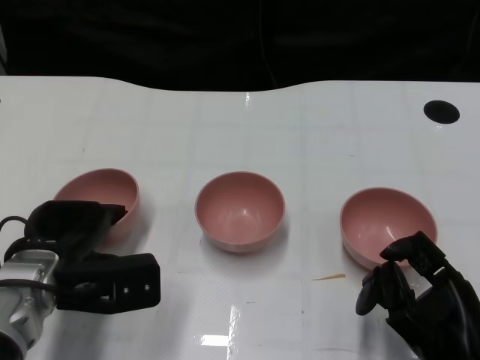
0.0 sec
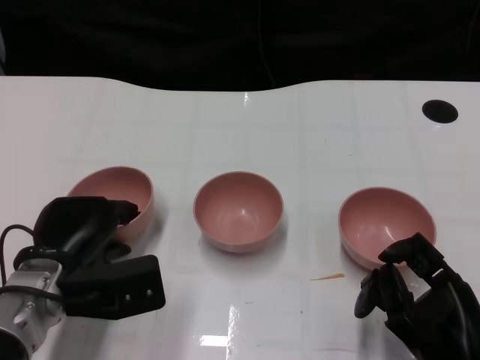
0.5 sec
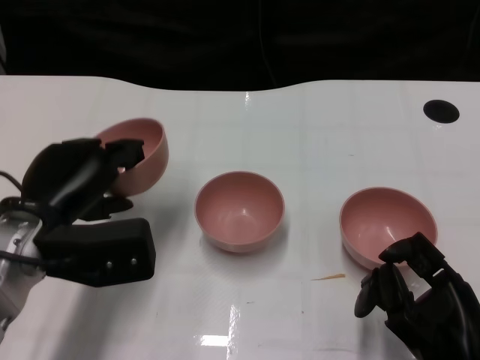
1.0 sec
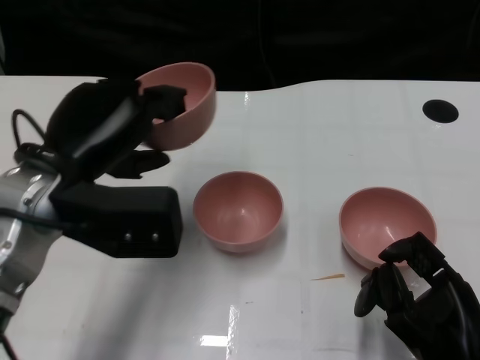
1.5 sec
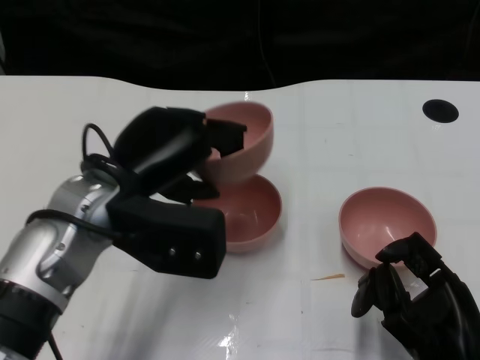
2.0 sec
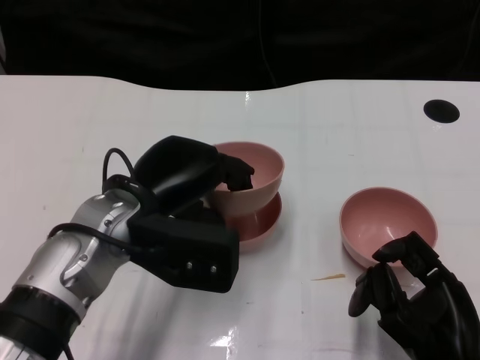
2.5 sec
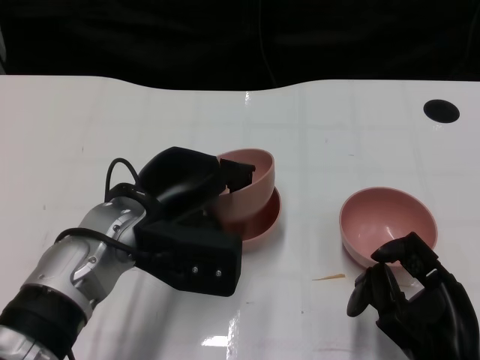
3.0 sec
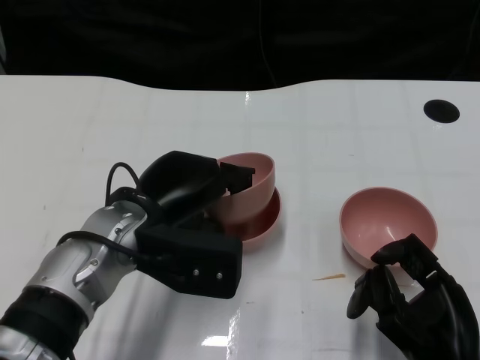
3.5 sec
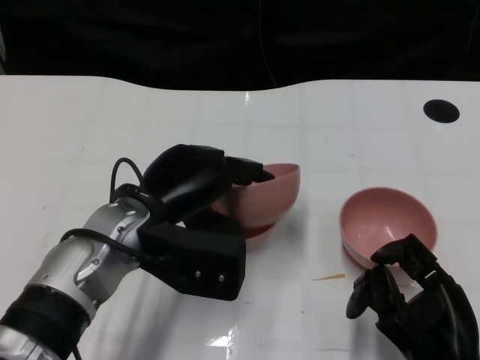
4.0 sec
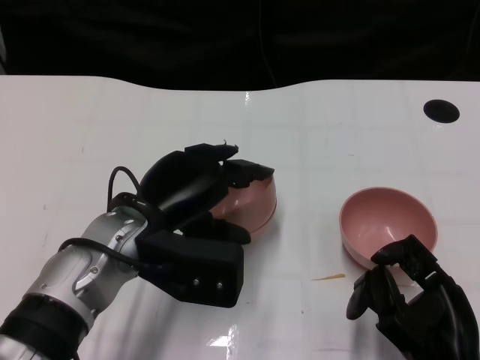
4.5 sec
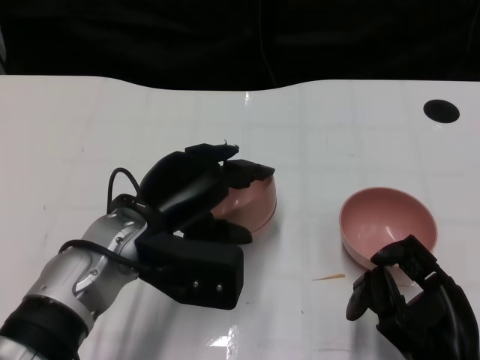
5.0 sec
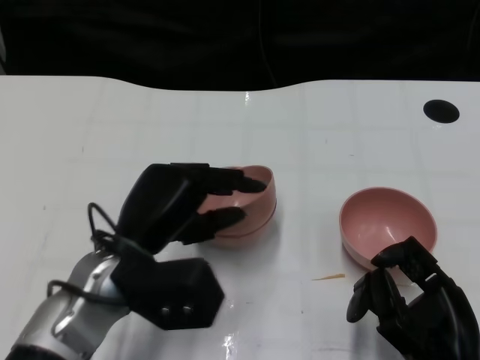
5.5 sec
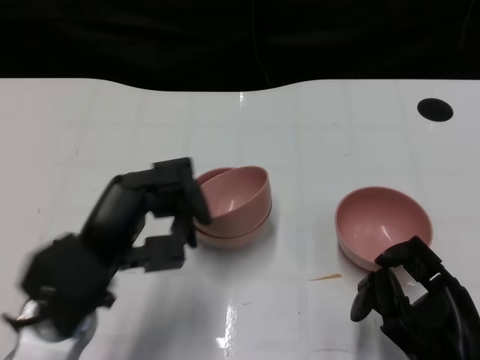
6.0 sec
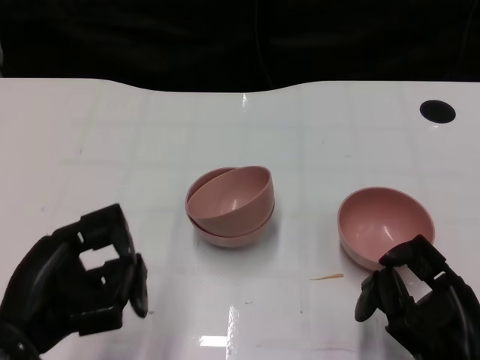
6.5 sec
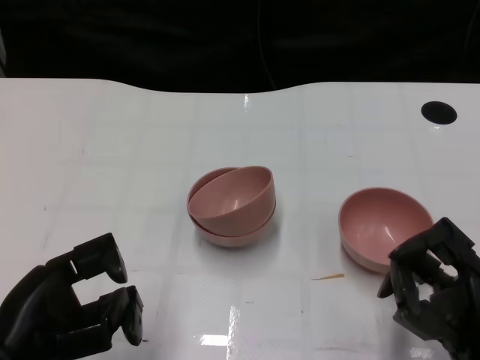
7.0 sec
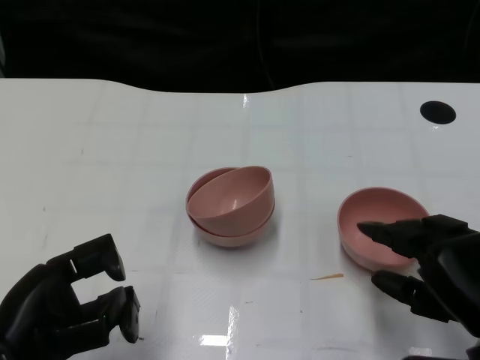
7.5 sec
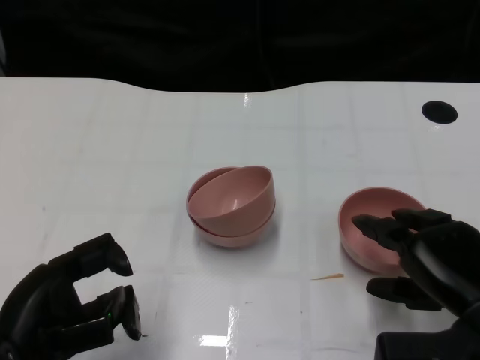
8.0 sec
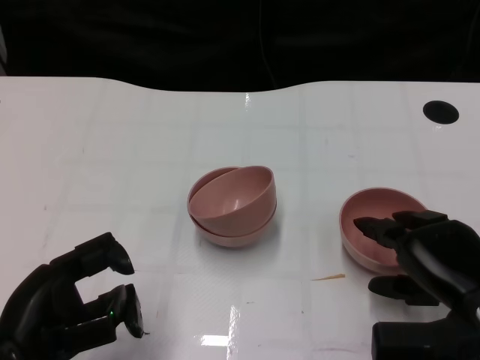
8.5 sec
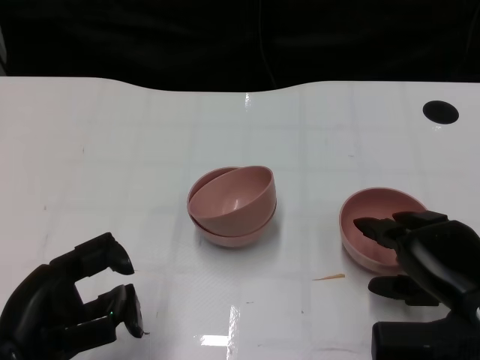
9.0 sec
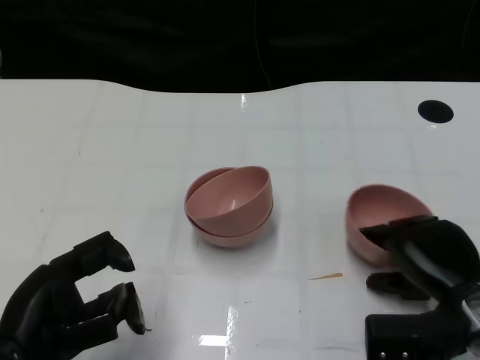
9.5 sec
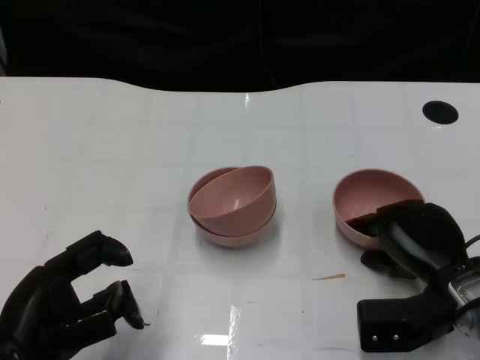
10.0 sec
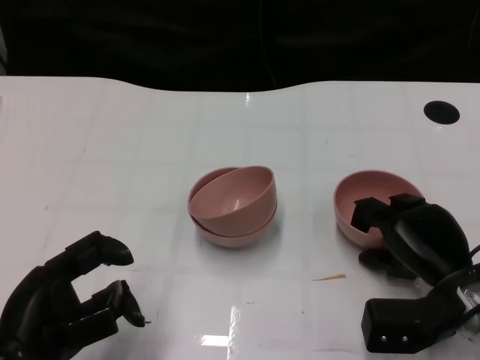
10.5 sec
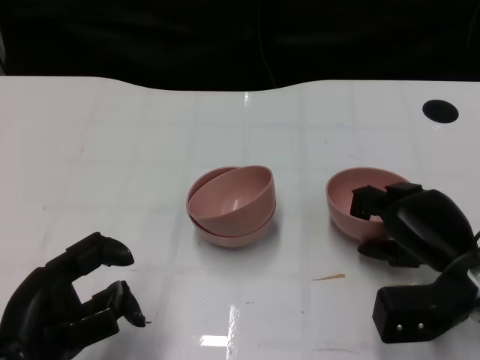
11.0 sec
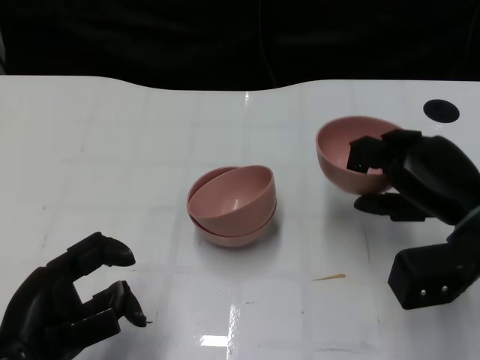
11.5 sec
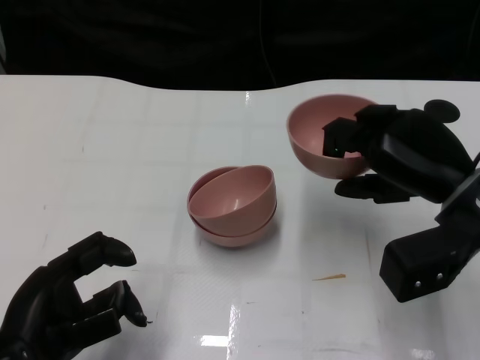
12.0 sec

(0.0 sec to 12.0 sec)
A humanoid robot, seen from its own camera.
Task of the whole recording: Pick up the bowl on one side of the table and place it on top of the middle bowl, then pick up the bowl on the other side of the table and place it on top of the middle bowls.
Step, 1.0 sec - 5.0 sec: Place the bowl on the left onto the bowl in the middle with left gripper.
Step, 5.5 sec - 11.0 sec: Grasp the bowl on the right with the right gripper.
0.0 sec - 2.0 sec: The left hand shifts roughly 10 cm upward and to the right.
4.0 sec - 6.0 sec: The left hand is displaced backward by about 5 cm.
6.0 sec - 8.0 sec: The right hand goes approximately 5 cm forward. Meanwhile the left hand heads to the left and backward, covering some 10 cm.
8.0 sec - 10.0 sec: The right hand goes about 5 cm forward.
10.0 sec - 12.0 sec: The right hand is displaced upward by about 10 cm.

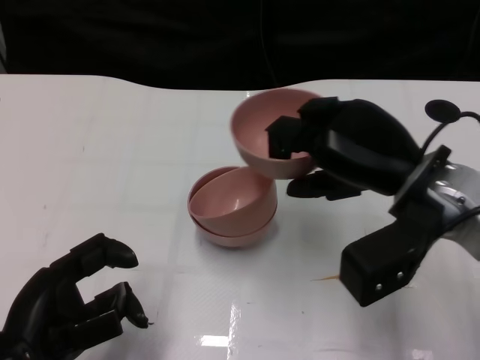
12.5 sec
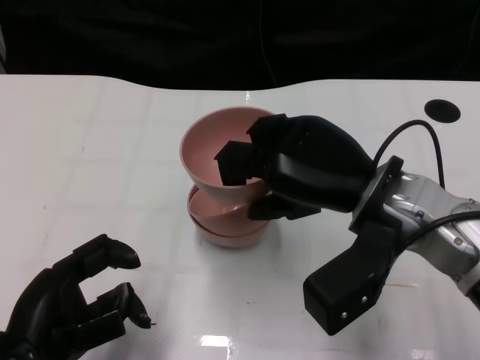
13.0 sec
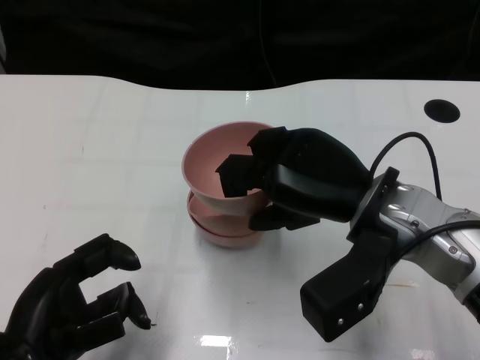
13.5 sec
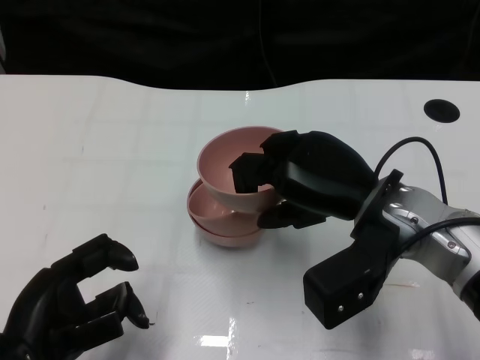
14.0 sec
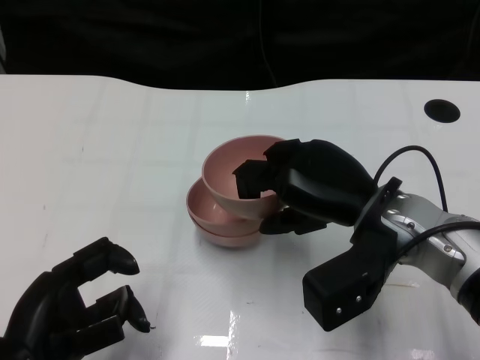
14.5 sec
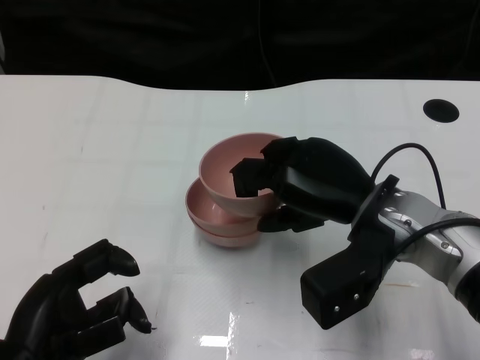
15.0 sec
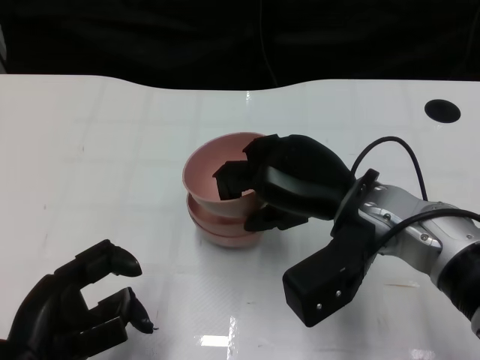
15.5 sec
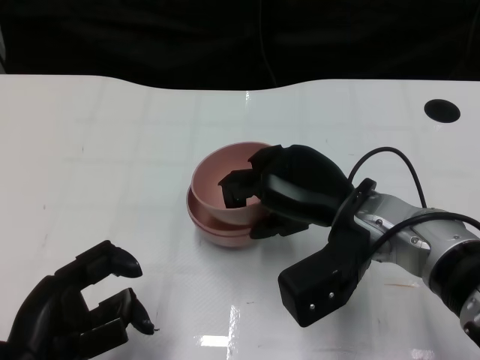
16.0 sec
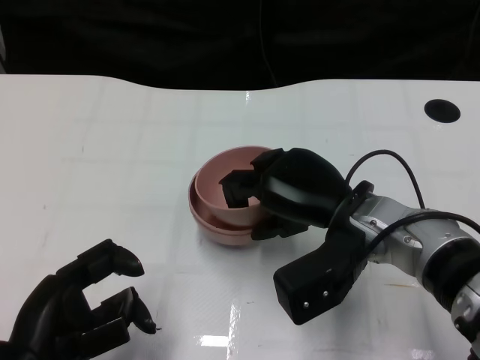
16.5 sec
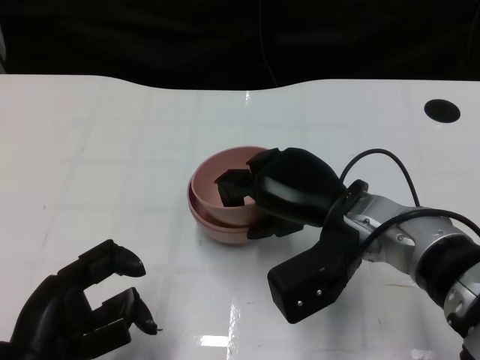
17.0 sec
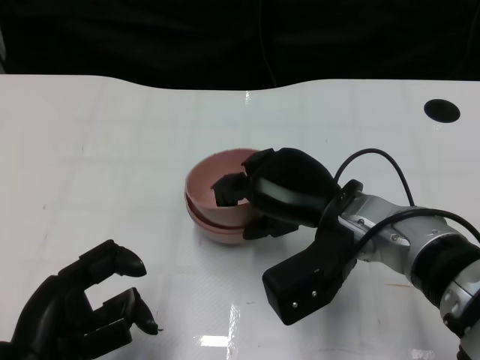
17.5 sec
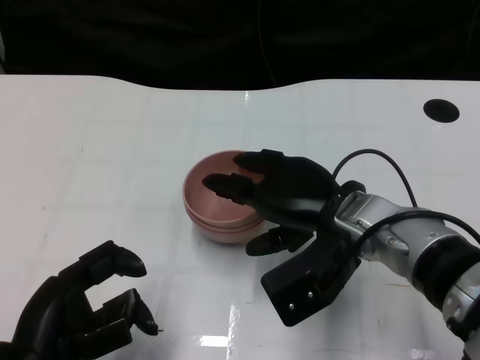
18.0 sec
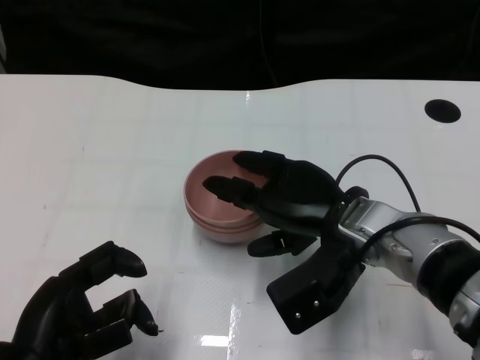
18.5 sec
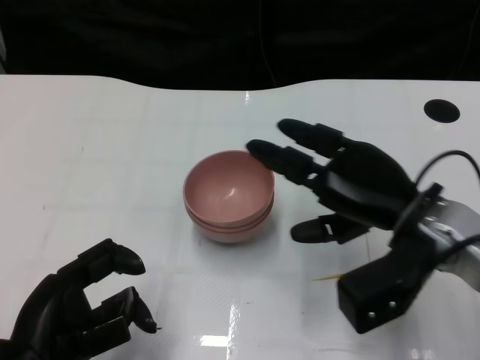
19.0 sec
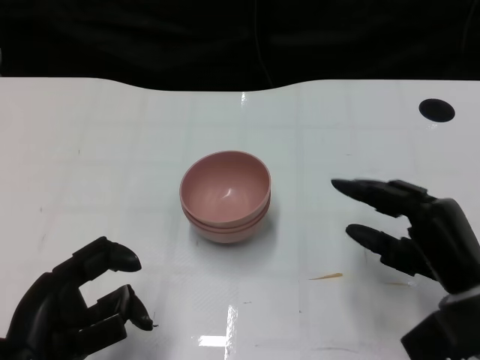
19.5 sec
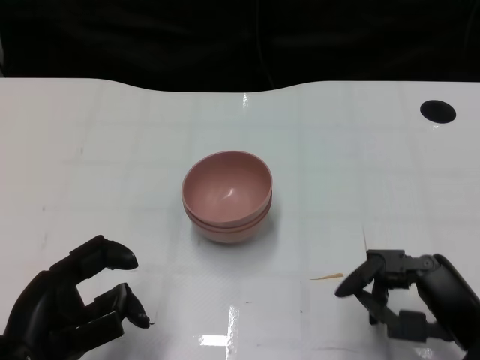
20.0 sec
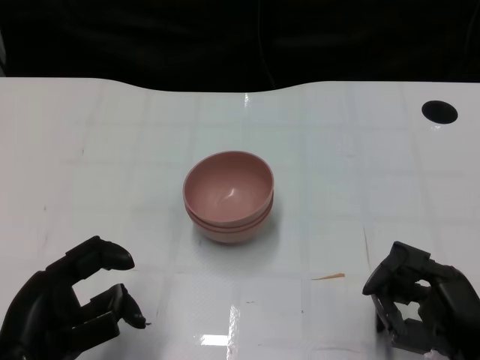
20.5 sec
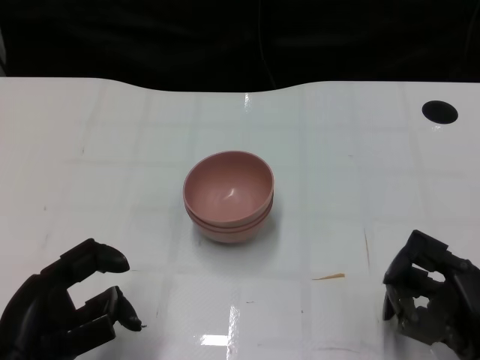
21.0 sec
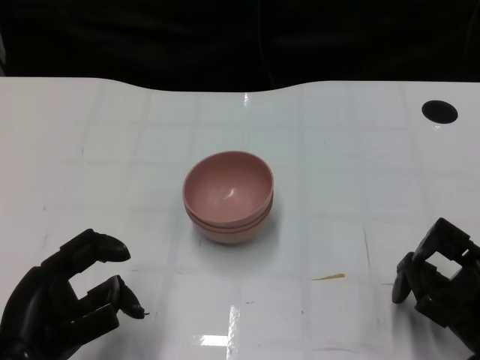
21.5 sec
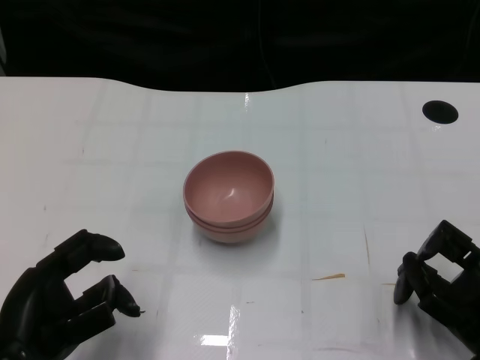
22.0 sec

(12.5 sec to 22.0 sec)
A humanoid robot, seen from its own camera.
Task of the whole recording: Pick up the bowl on one side of the table and place it on top of the middle bowl, then pick up the bowl on the other side of the table and place it on top of the middle bowls.
Step, 12.5 sec - 18.0 sec: Place the bowl on the right onto the bowl in the middle with right gripper.
14.5 sec - 18.0 sec: The hands move only a little.
18.0 sec - 20.0 sec: The right hand heads to the right, backward and downward, covering about 20 cm.

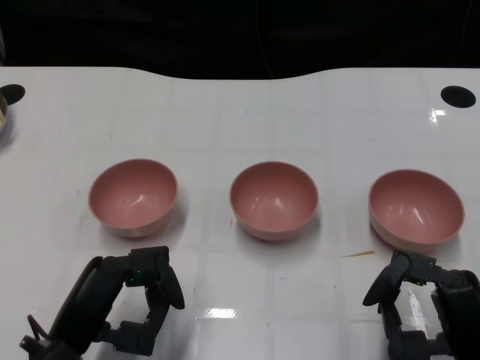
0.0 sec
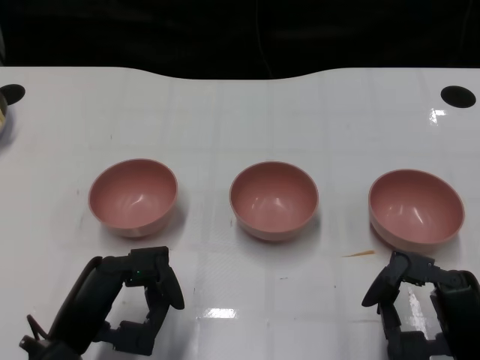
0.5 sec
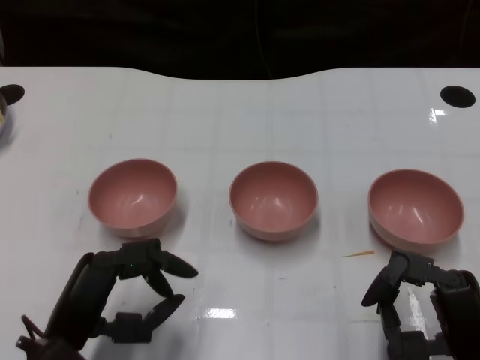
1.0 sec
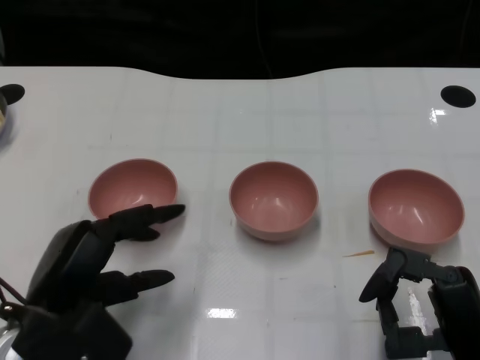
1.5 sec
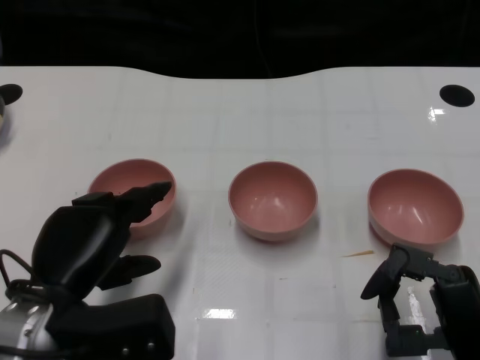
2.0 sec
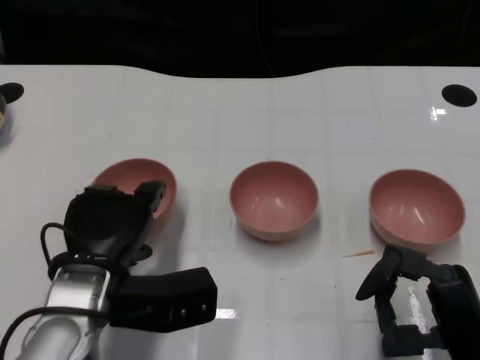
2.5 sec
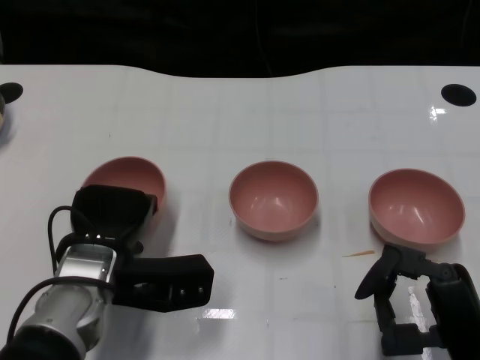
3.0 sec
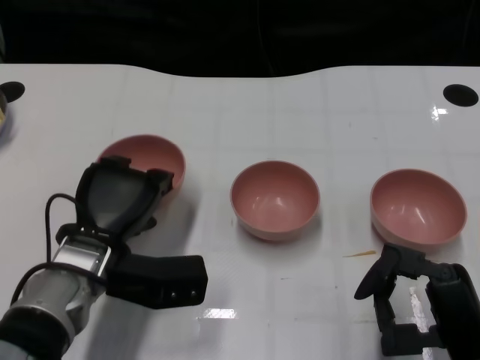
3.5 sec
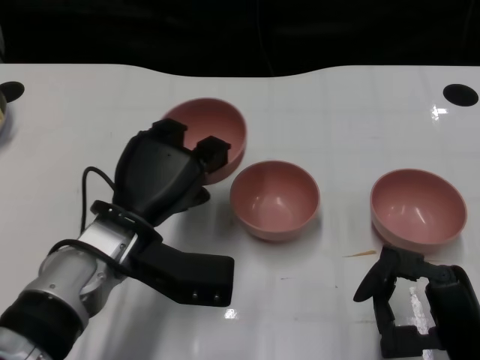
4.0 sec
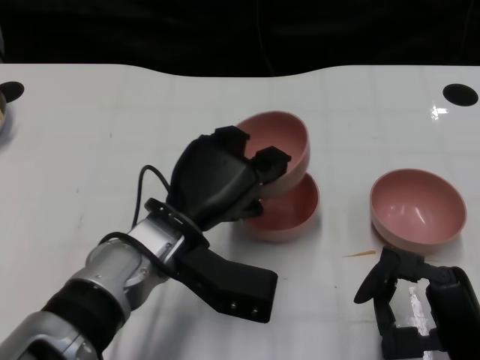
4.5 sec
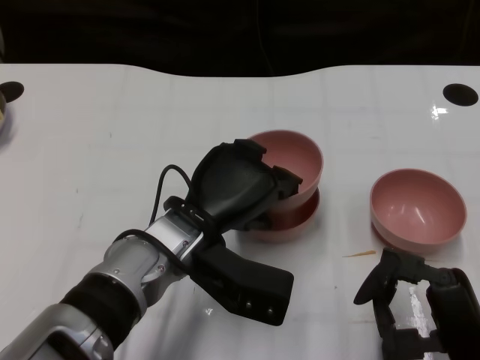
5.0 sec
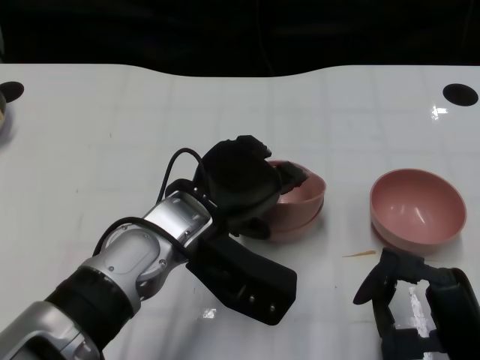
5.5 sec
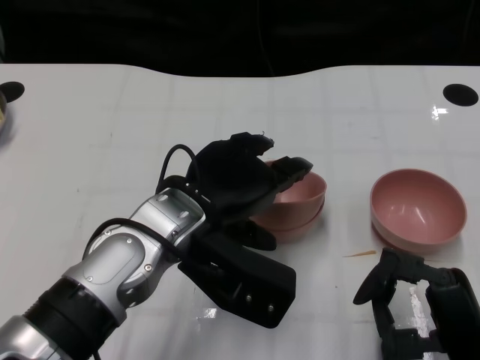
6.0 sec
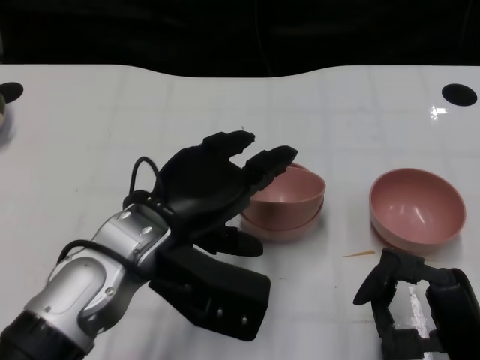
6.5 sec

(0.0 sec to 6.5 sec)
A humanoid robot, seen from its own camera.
Task of the whole recording: Pick up the bowl on one side of the table and place it on top of the middle bowl, then pick up the bowl on the other side of the table and place it on top of the middle bowls.
Step, 1.0 sec - 3.0 sec: Grasp the bowl on the left with the left gripper.
Step, 3.5 sec - 6.0 sec: Place the bowl on the left onto the bowl in the middle with left gripper.
2.0 sec - 4.5 sec: The left hand travels to the right and forward by roughly 15 cm.
4.5 sec - 6.5 sec: The left hand ends up some 5 cm from where it was.
